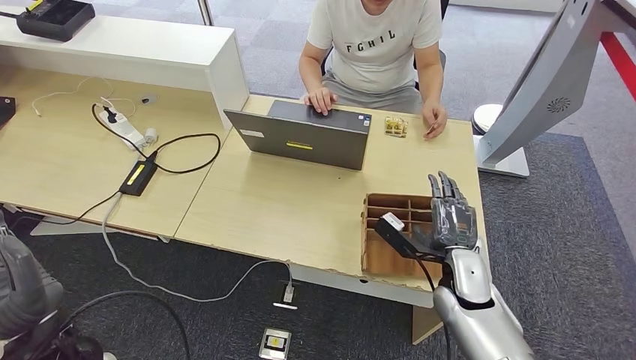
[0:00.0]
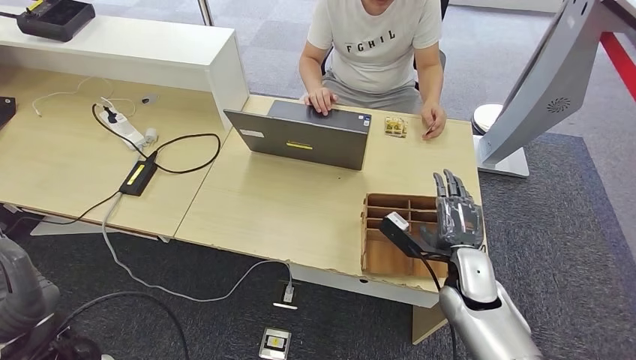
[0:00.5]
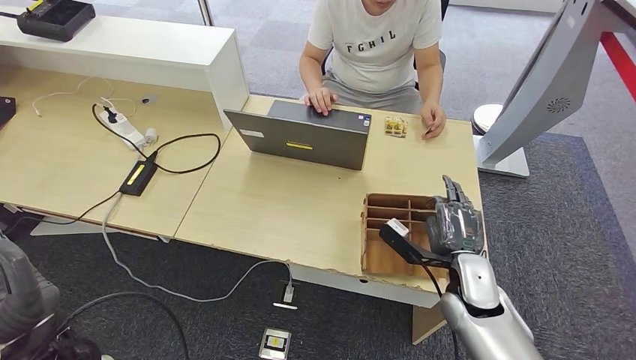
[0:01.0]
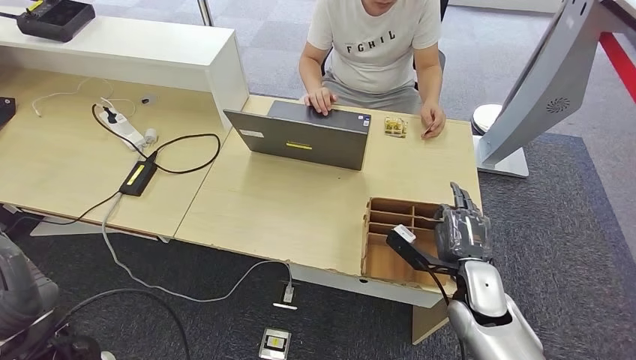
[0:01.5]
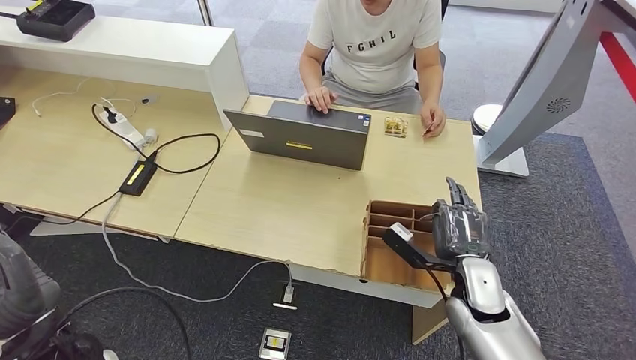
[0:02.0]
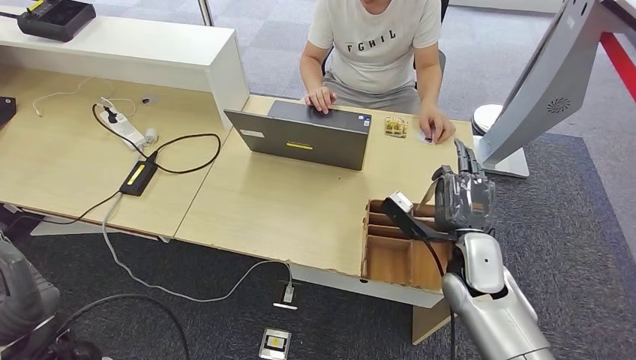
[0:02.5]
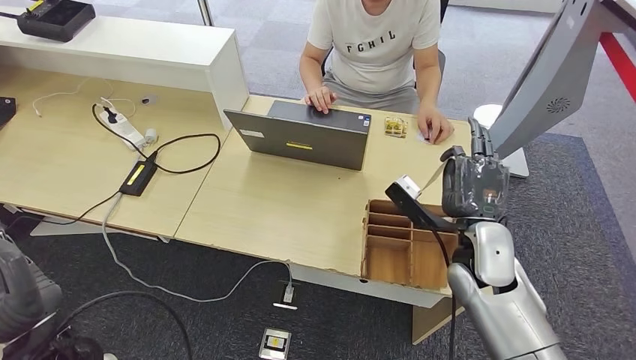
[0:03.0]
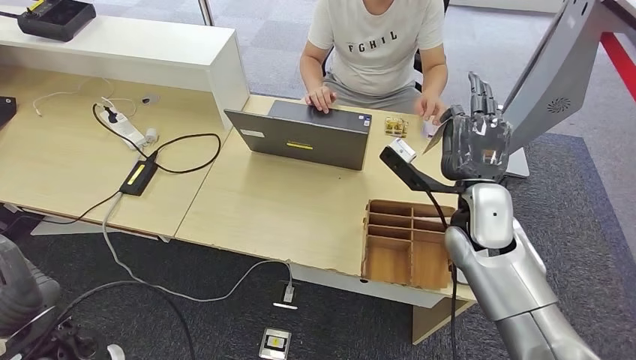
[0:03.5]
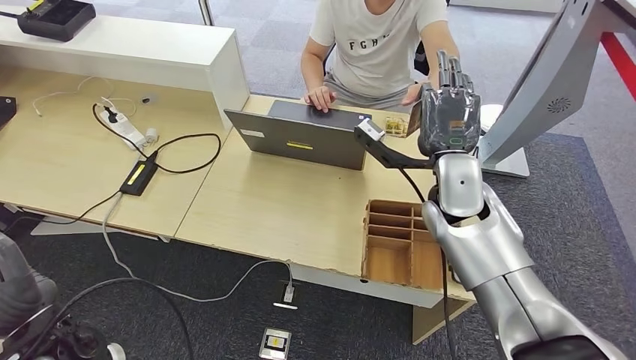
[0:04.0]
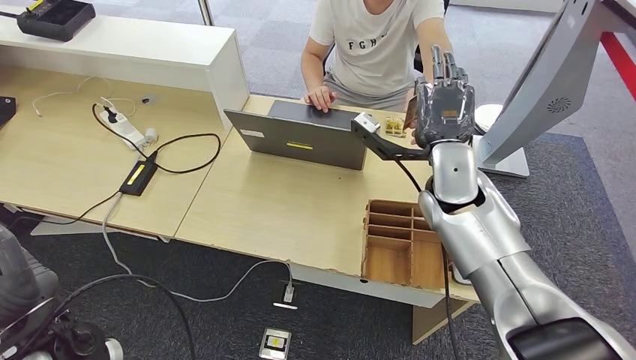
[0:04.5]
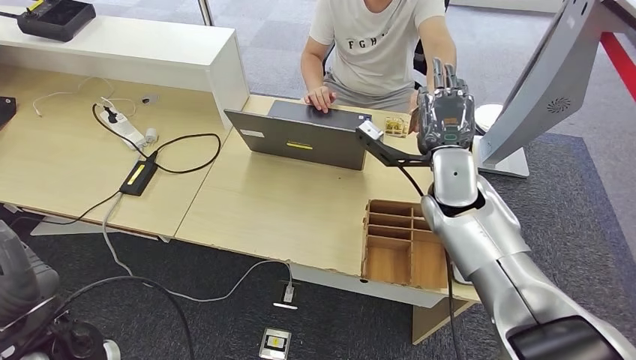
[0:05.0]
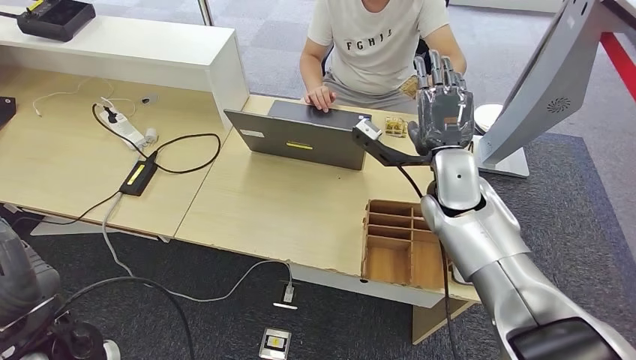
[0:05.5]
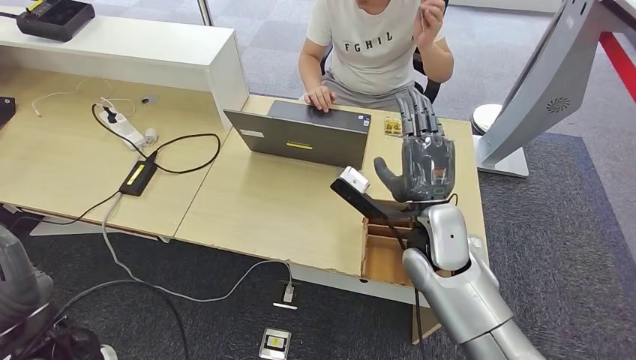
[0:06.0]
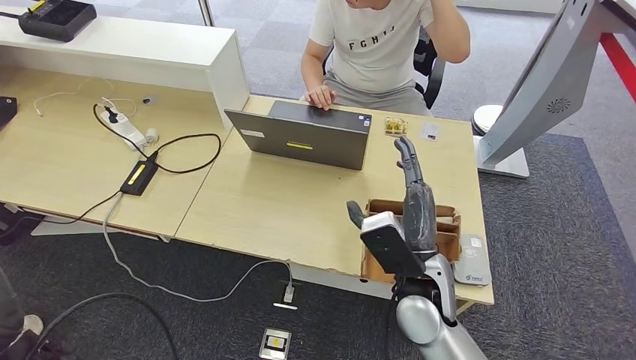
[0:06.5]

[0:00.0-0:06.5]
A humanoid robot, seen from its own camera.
Step, 0:02.0 to 0:04.0: Pick up the room key from the key card box.
Step, 0:04.5 to 0:06.5: Hand the room key to the person.
0:00.0 to 0:02.0: The hands move only a little.
0:02.0 to 0:04.5: The right hand moves upward, forward and to the left, some 20 cm.
0:04.5 to 0:06.5: The right hand goes approximately 15 cm backward and downward.
